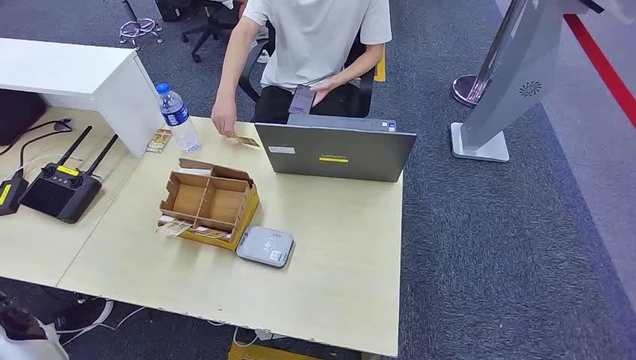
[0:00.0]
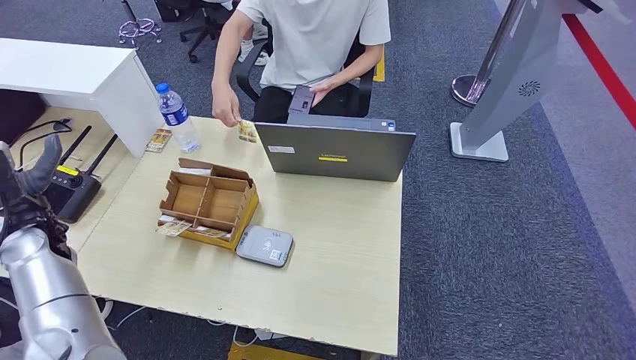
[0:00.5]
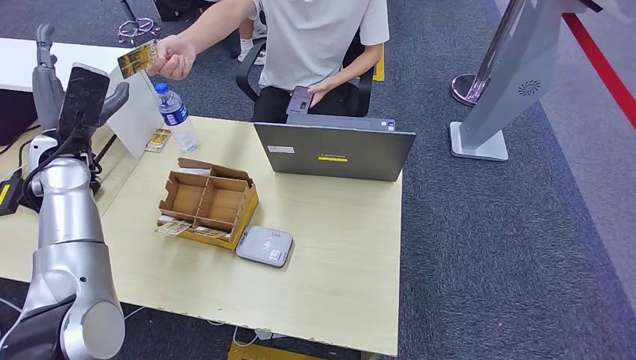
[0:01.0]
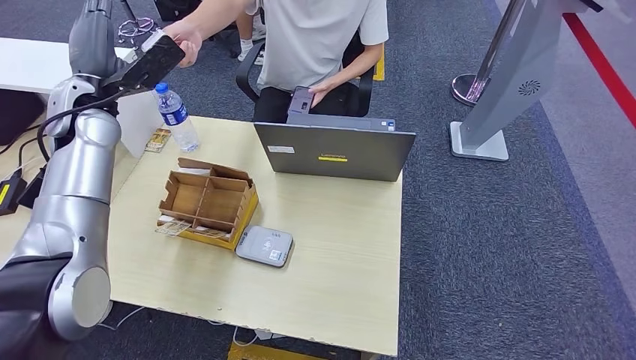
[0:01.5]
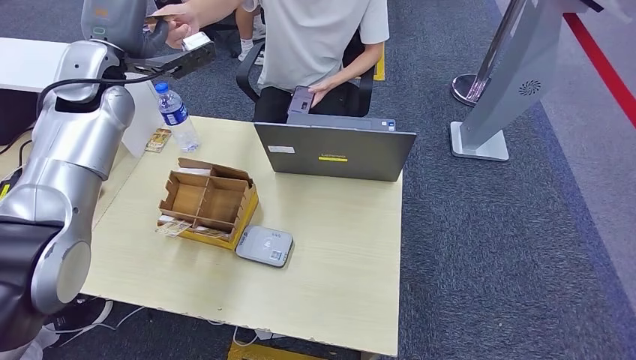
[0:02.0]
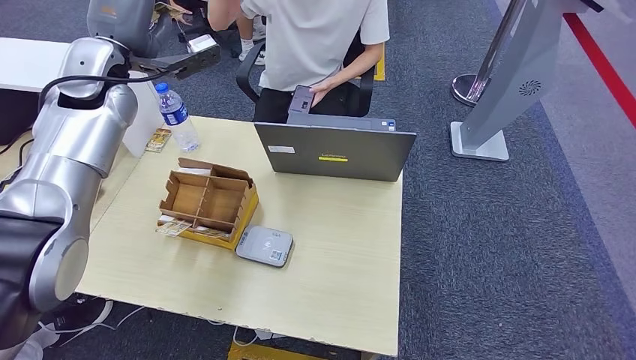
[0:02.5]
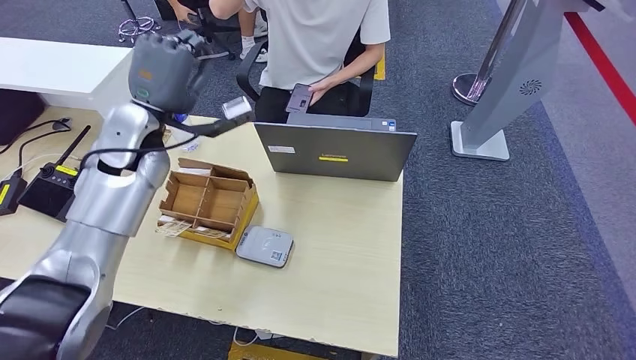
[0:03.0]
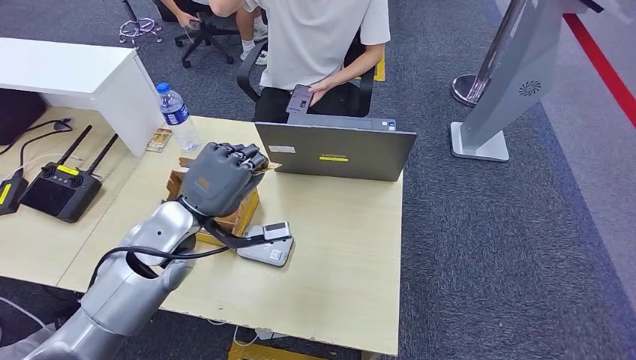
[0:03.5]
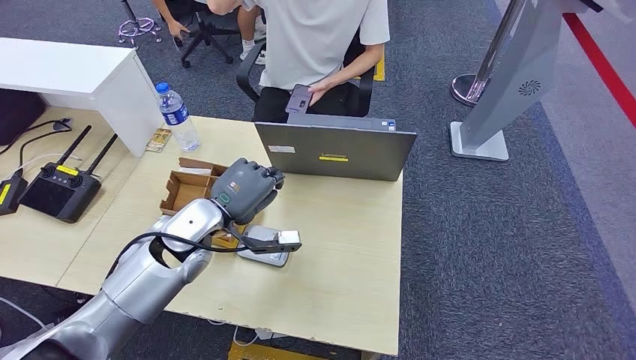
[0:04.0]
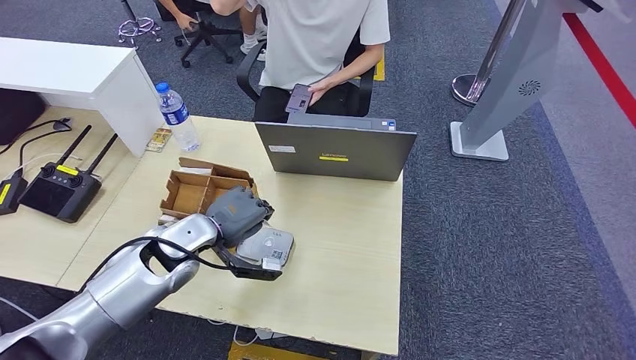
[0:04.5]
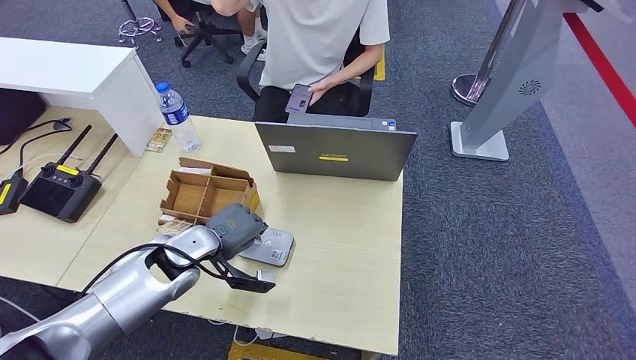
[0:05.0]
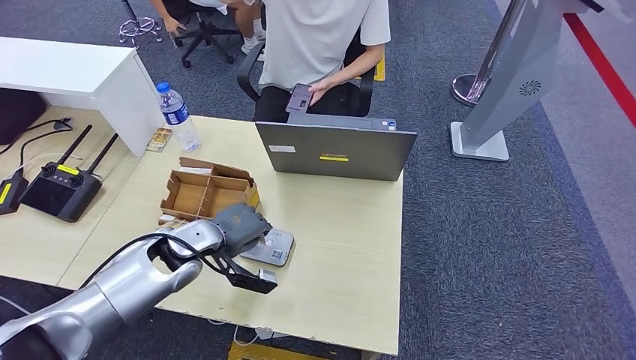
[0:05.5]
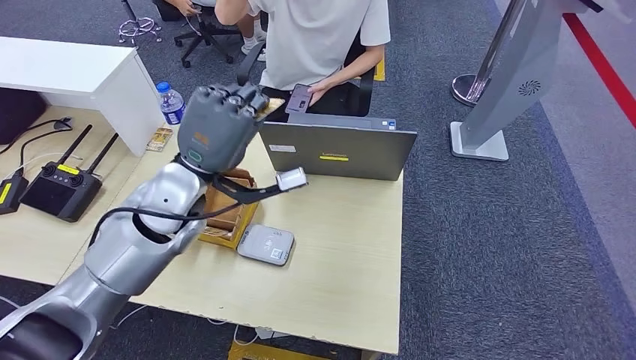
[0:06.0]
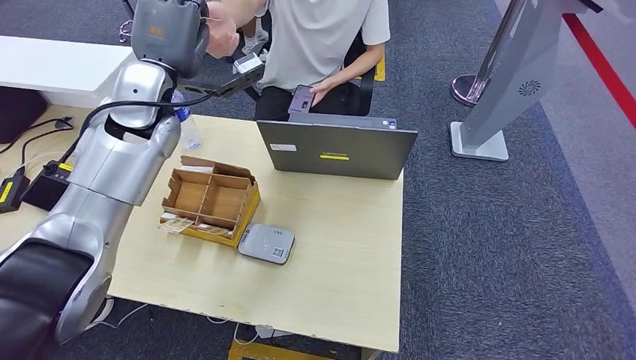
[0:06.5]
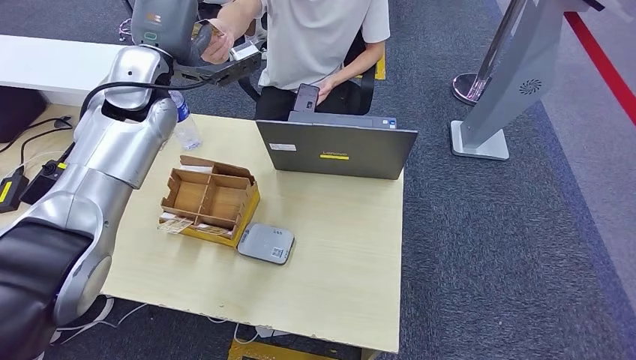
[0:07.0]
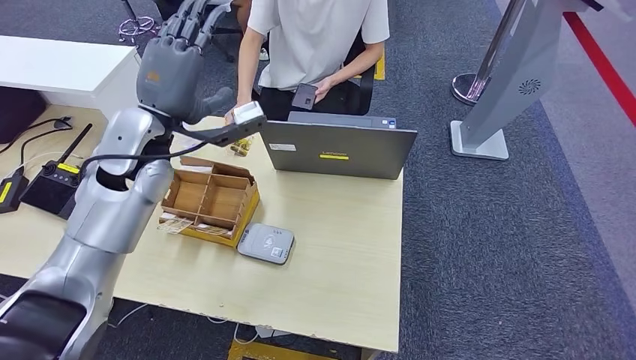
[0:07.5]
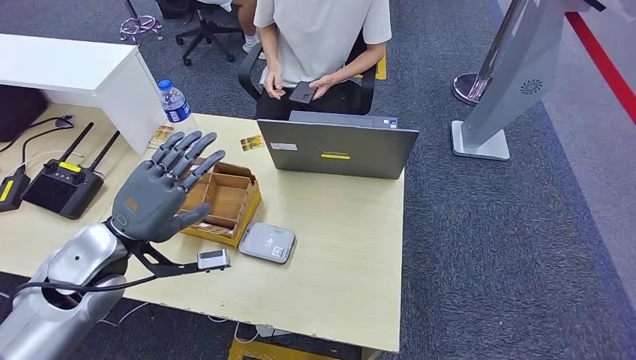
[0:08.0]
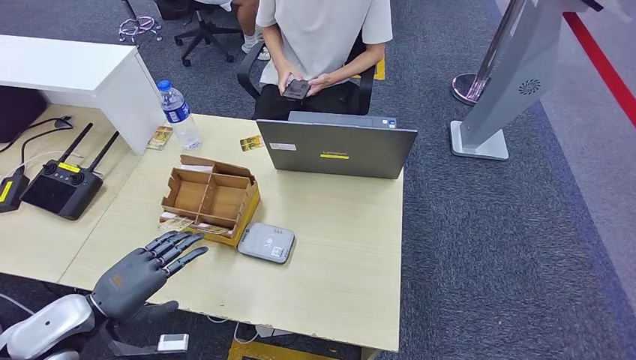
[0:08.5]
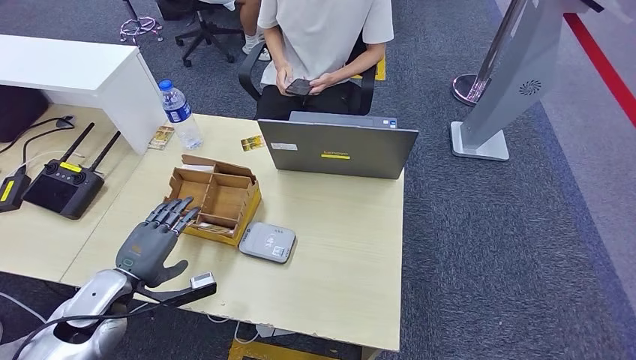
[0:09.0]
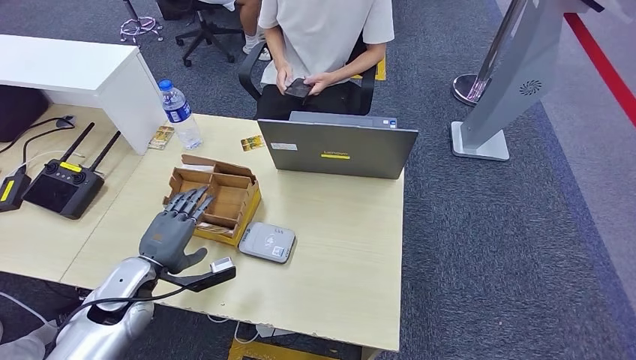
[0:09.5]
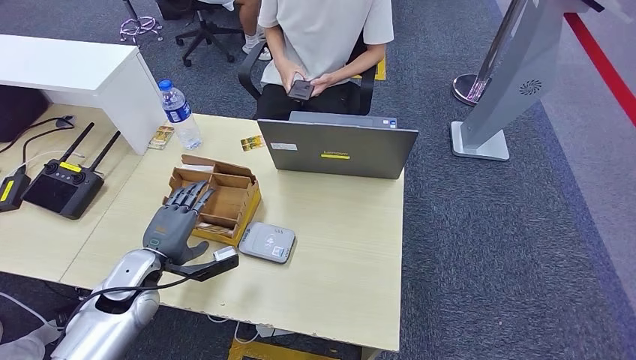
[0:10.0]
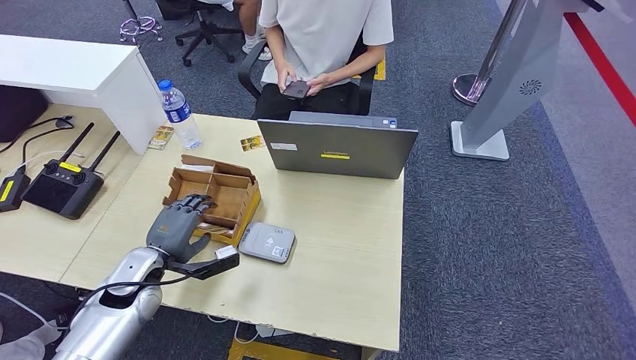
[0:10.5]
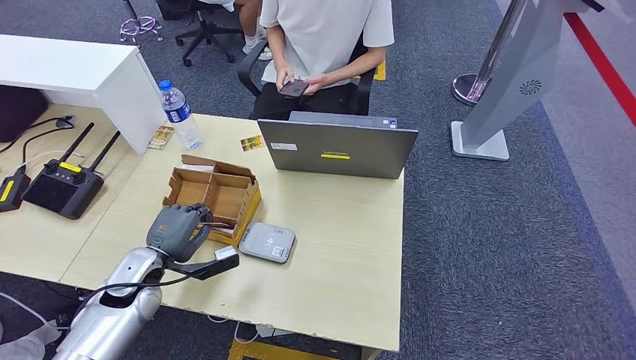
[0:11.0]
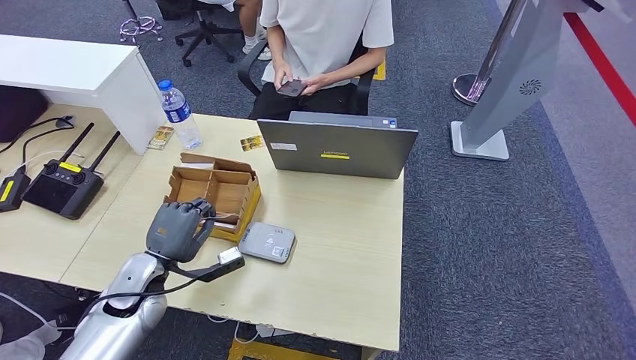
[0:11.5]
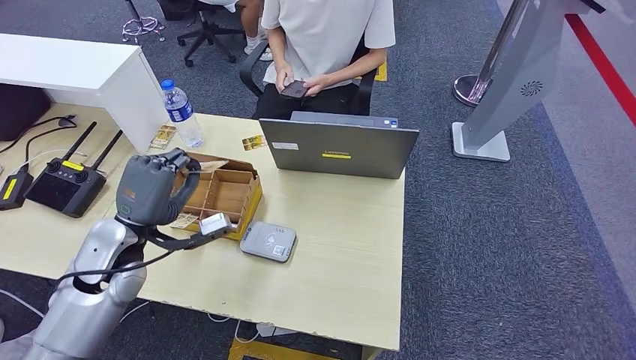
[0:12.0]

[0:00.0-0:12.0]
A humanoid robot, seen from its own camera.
Step, 0:00.0 to 0:03.0: Take the ID card from the person's hand.
Step, 0:03.5 to 0:04.5: Place the ID card on the card reader.
Step, 0:05.0 to 0:08.0: Hand the ID card to the person.
0:04.0 to 0:06.0: The left hand is displaced upward by about 10 cm.
0:06.0 to 0:08.0: The left hand heads to the left and backward, covering roughly 15 cm.
0:08.0 to 0:10.0: The left hand goes approximately 15 cm downward.
0:10.0 to 0:12.0: The left hand heads upward, covering some 10 cm.

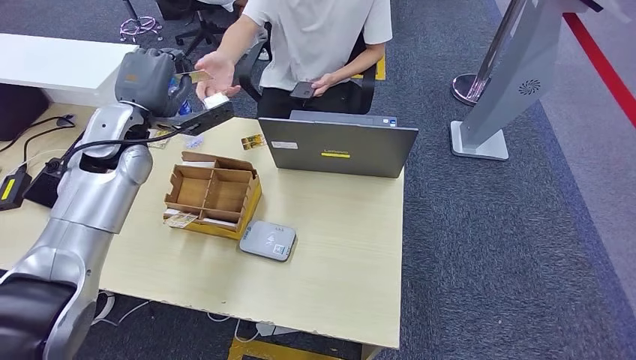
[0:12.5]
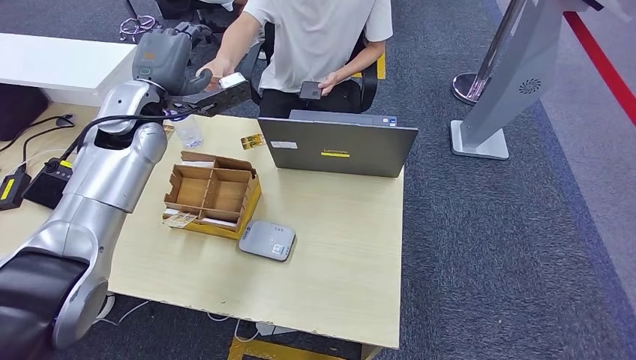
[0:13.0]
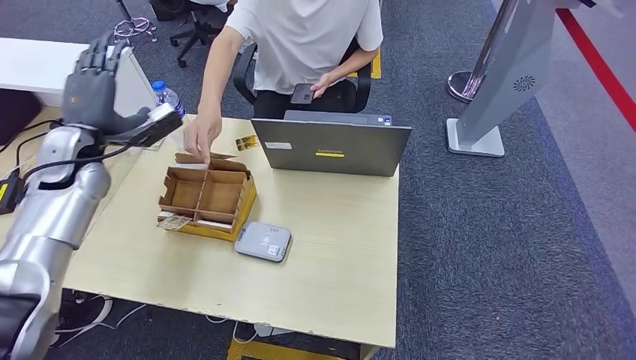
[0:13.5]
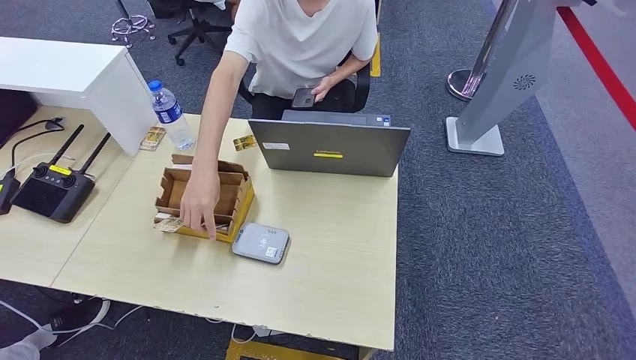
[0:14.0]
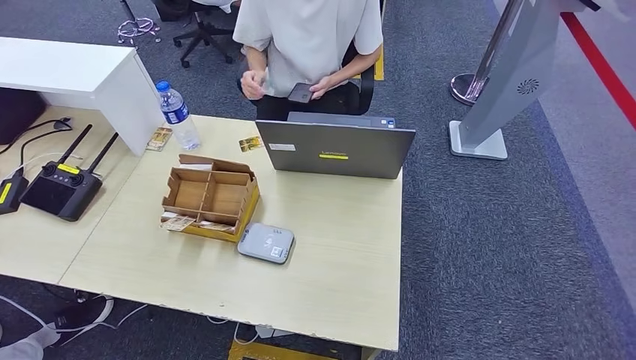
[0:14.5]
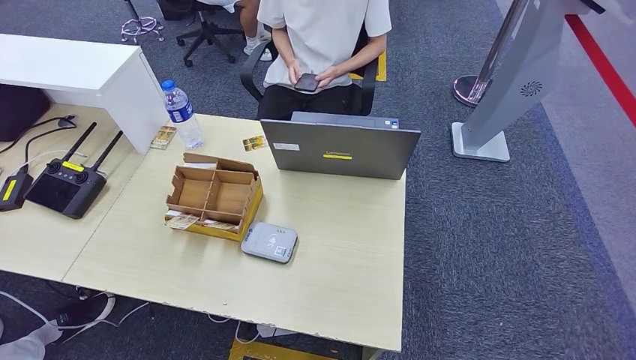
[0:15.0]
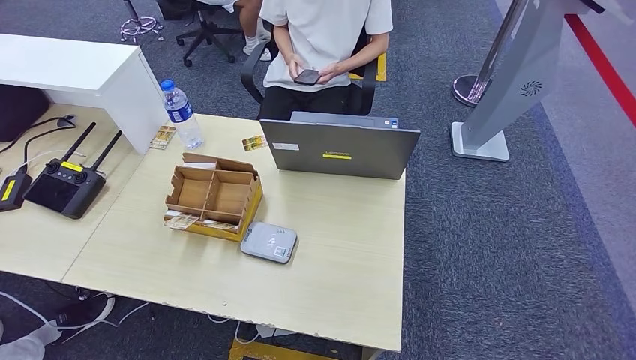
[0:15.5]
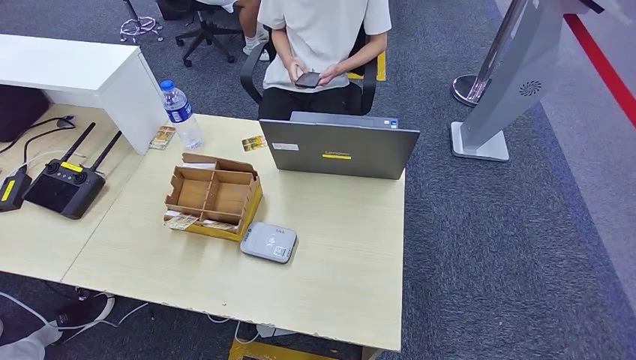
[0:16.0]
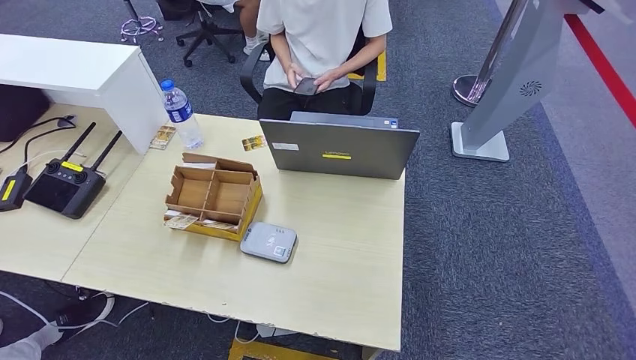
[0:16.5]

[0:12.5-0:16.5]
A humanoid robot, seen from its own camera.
Step, 0:12.5 to 0:16.5: Hand the room key to the person.
0:14.5 to 0:16.5: The right hand heads forward and to the left, covering some 10 cm; the left hand is displaced to the right and downward by roughly 35 cm.
